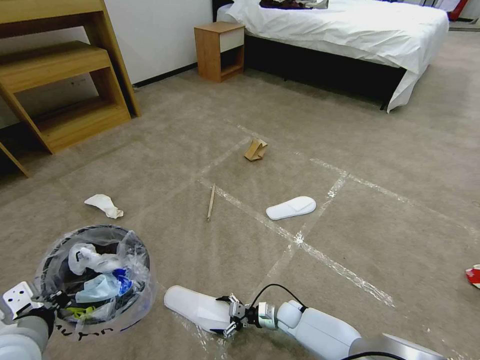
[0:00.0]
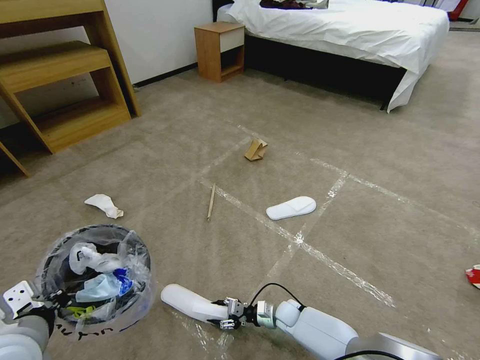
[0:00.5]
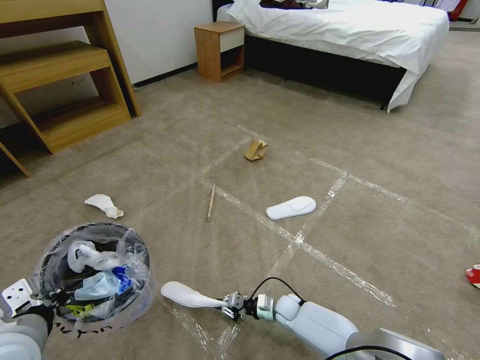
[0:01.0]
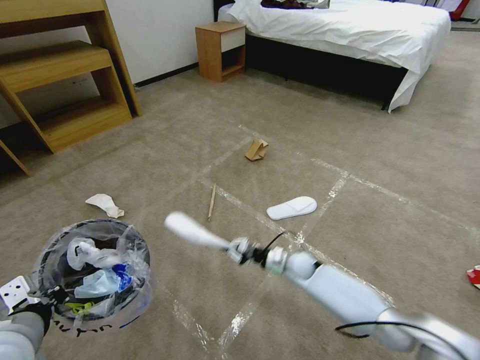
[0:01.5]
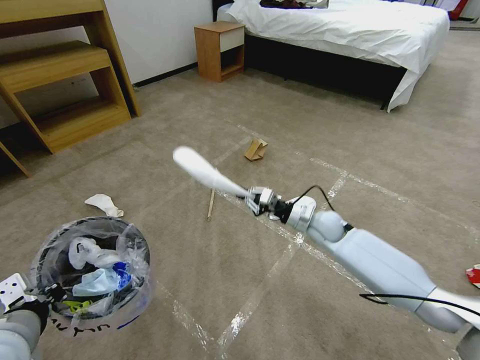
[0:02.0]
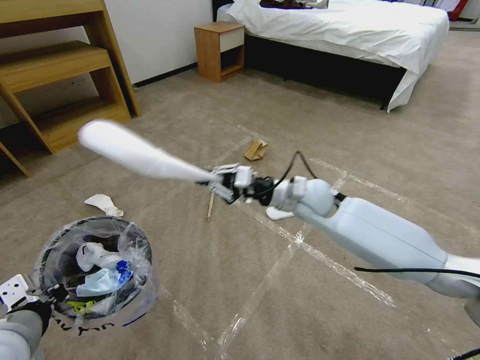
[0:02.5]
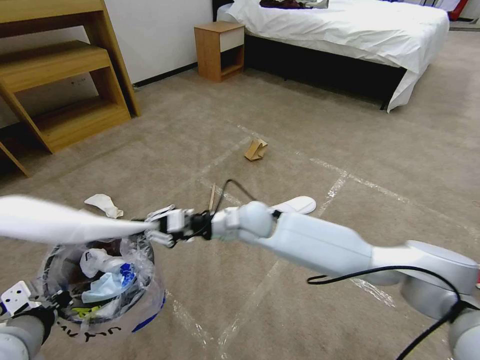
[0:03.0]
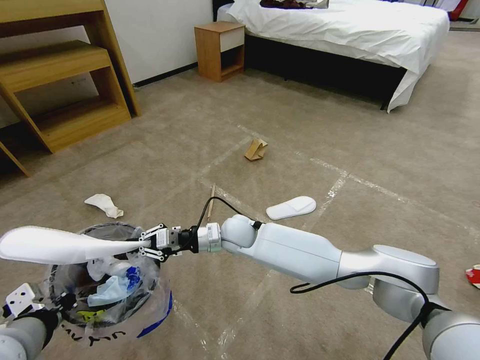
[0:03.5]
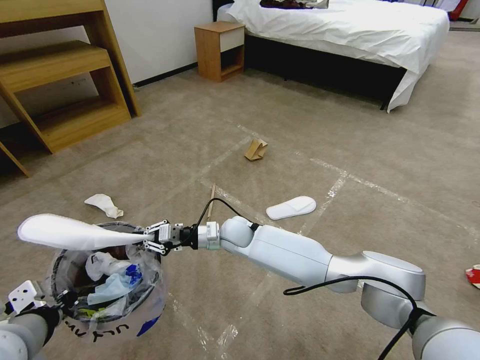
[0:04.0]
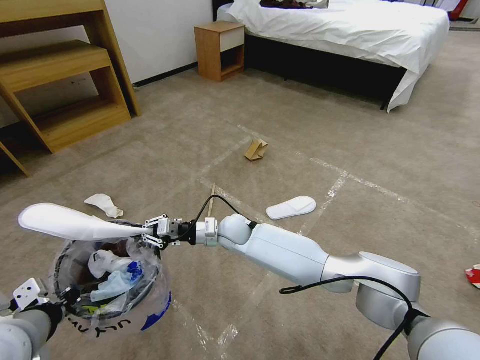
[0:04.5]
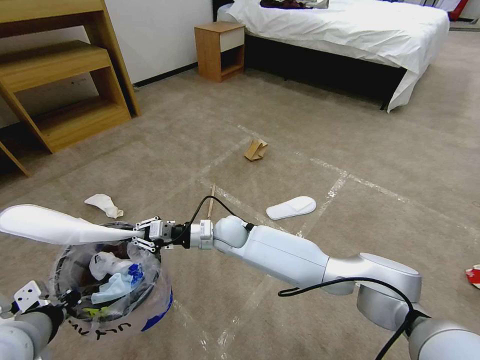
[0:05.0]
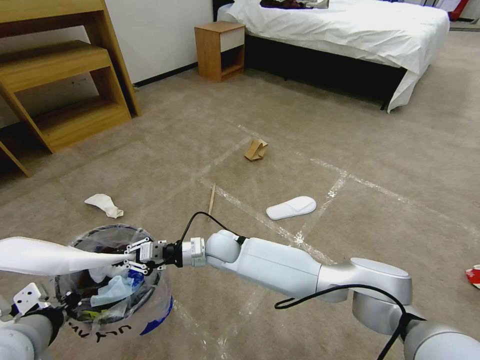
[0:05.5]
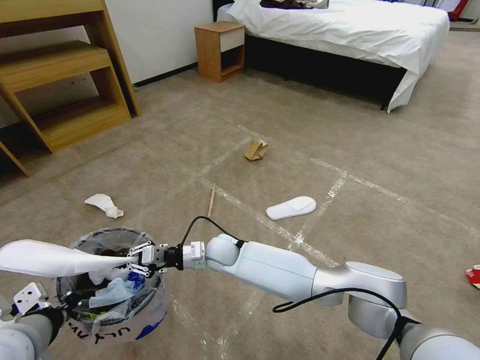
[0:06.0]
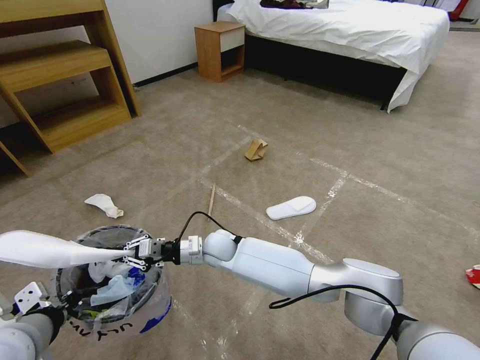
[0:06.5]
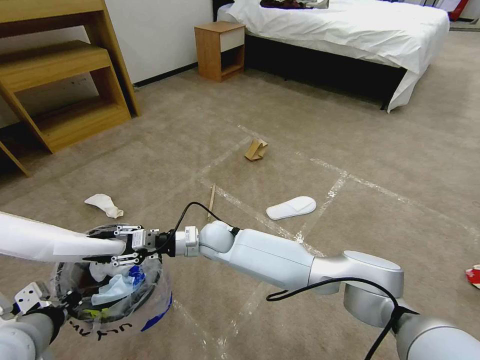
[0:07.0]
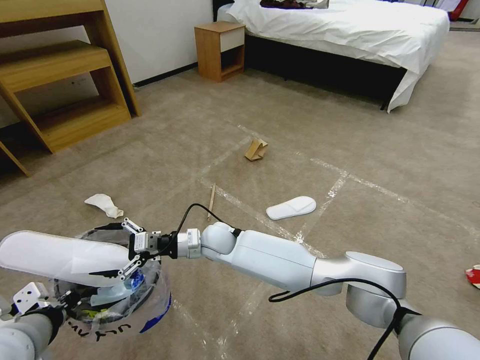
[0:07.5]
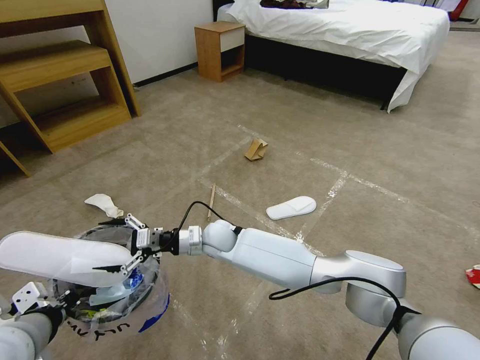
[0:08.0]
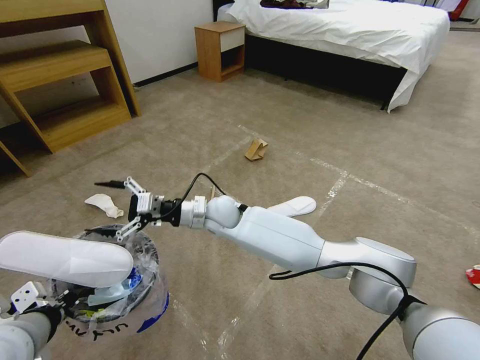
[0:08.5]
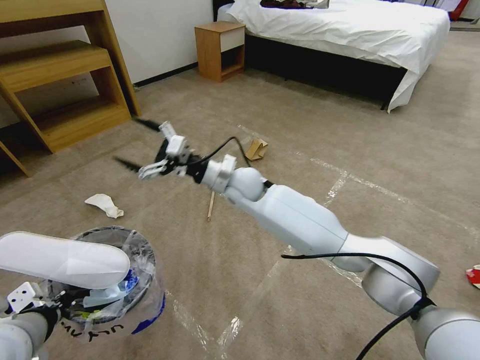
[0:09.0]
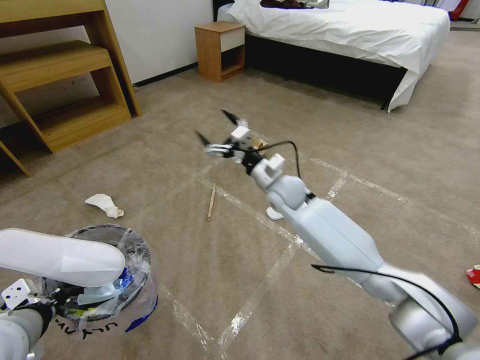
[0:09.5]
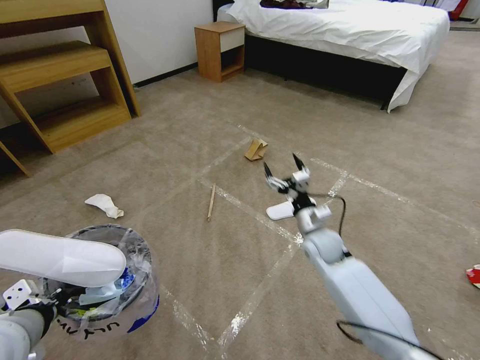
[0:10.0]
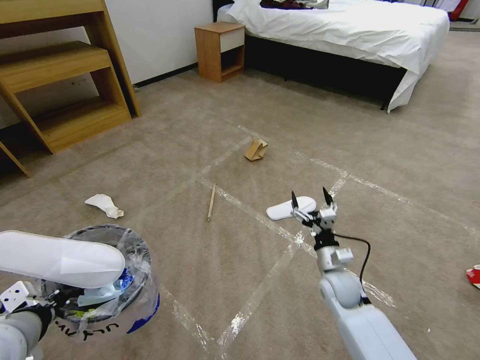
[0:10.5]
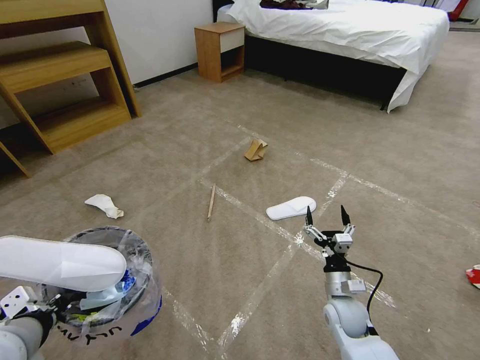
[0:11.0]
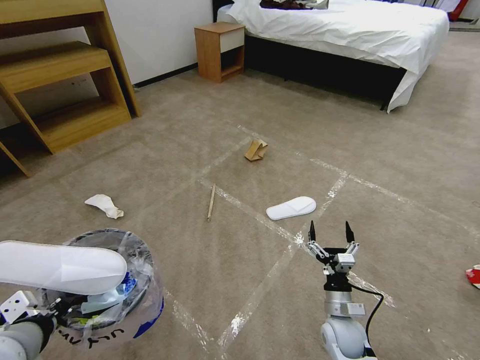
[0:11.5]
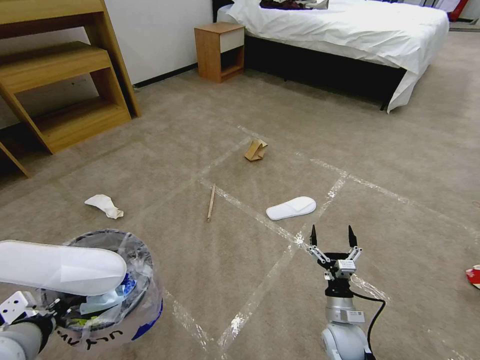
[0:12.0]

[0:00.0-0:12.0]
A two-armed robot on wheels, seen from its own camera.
Task of the whole recording: Pick up the trash bin and place the garbage on the floor into it.
0:00.0 to 0:02.0: The right gripper is displaced upward and forward by some 30 cm, and closes its fingers.
0:02.0 to 0:04.0: The right gripper goes roughly 25 cm to the left.
0:04.0 to 0:06.0: The right gripper changes place by about 5 cm.
0:06.0 to 0:08.0: The right gripper opens up.
0:08.0 to 0:10.0: The right gripper travels to the right by some 30 cm.
0:10.0 to 0:12.0: The right gripper travels backward and downward by some 20 cm.

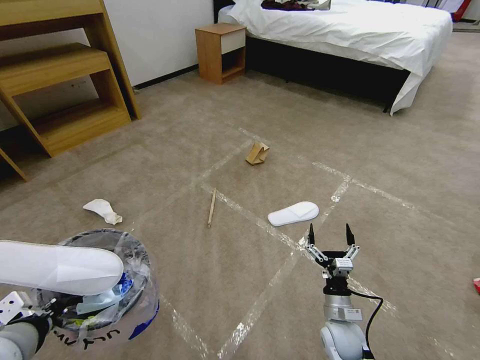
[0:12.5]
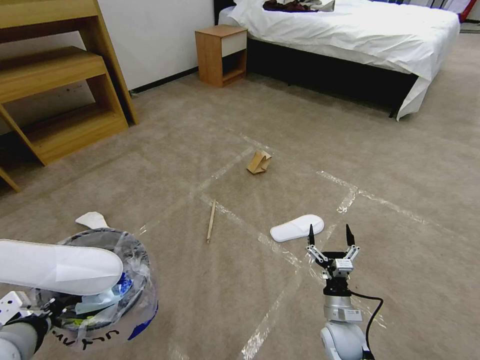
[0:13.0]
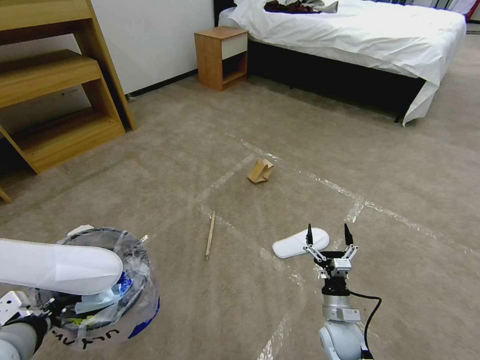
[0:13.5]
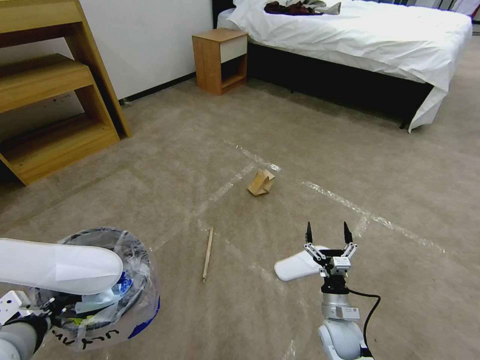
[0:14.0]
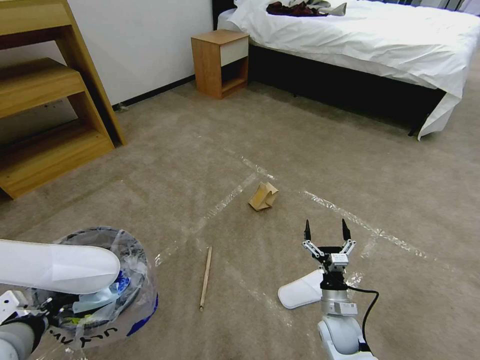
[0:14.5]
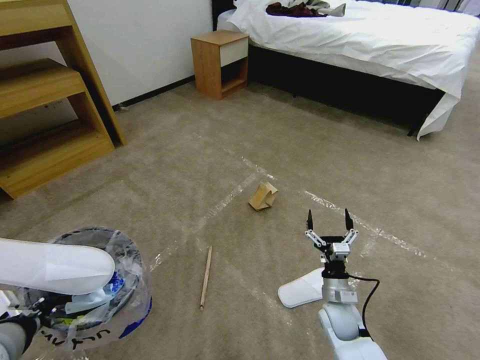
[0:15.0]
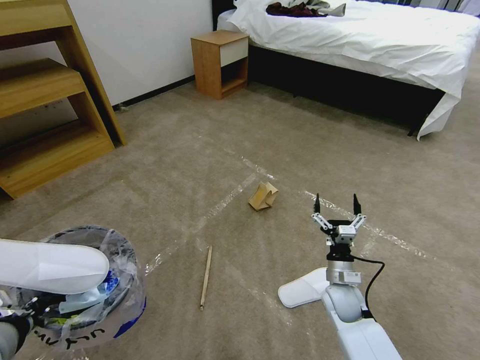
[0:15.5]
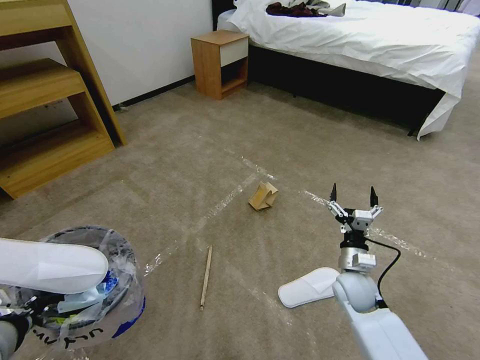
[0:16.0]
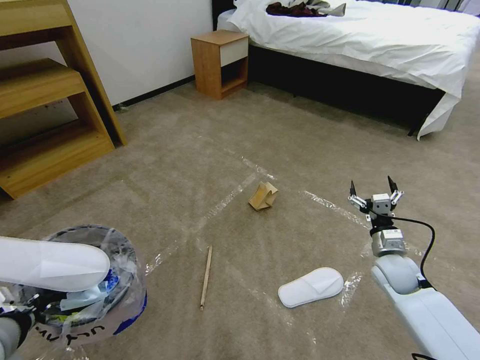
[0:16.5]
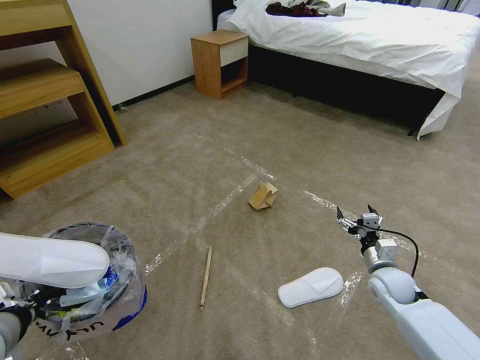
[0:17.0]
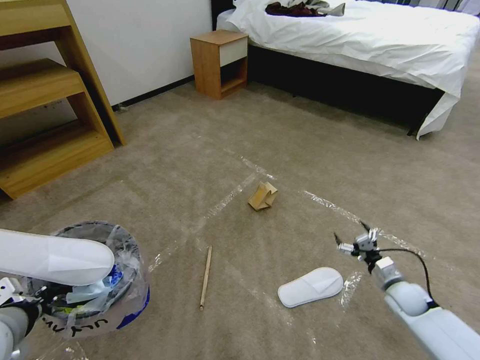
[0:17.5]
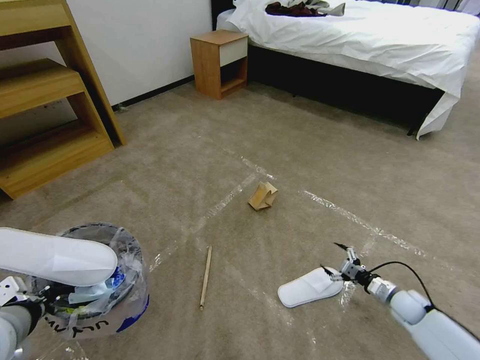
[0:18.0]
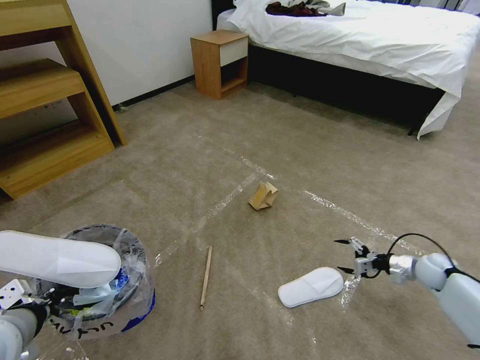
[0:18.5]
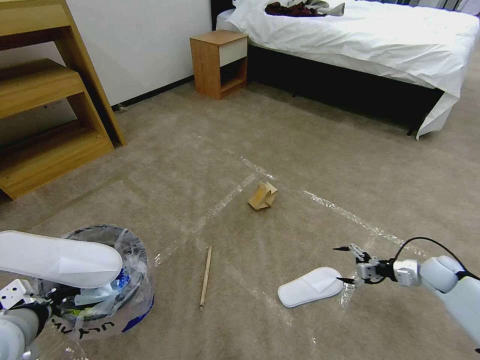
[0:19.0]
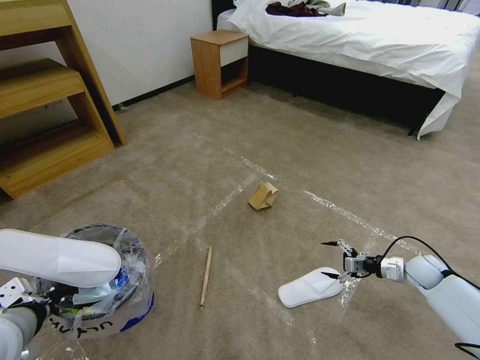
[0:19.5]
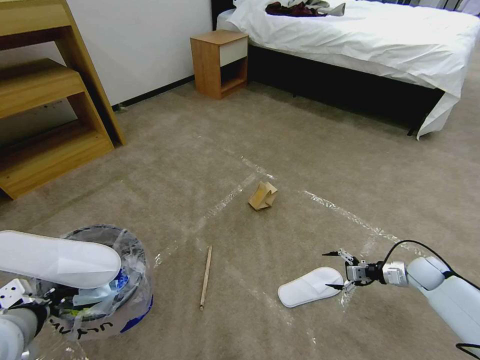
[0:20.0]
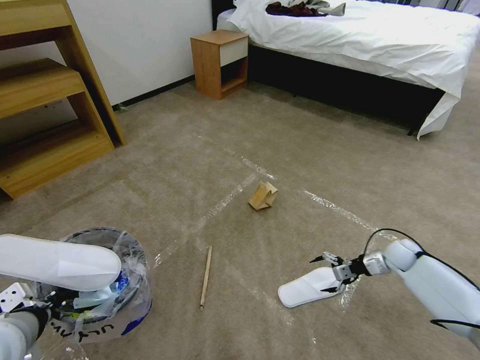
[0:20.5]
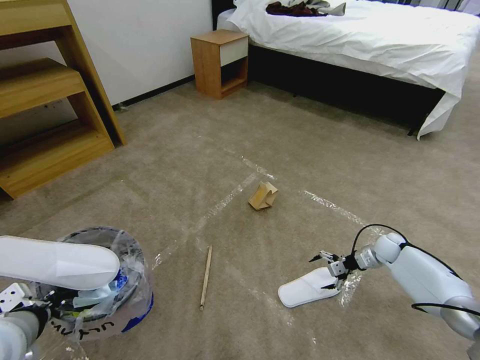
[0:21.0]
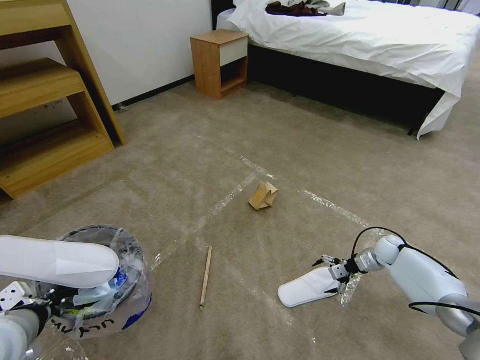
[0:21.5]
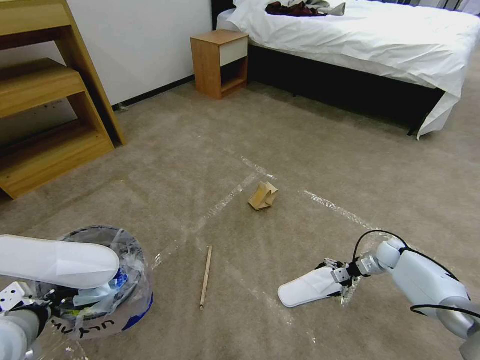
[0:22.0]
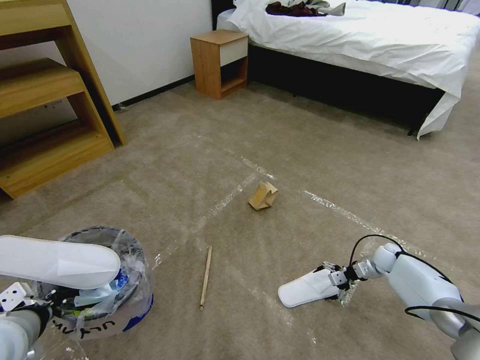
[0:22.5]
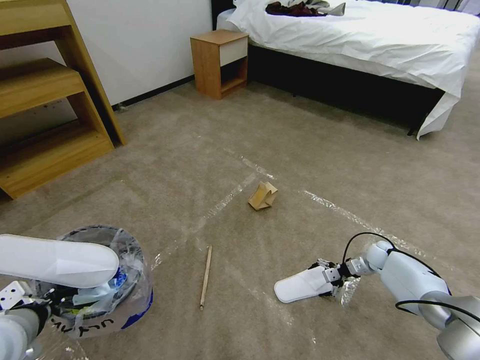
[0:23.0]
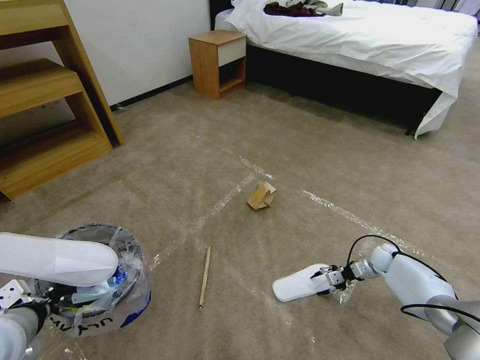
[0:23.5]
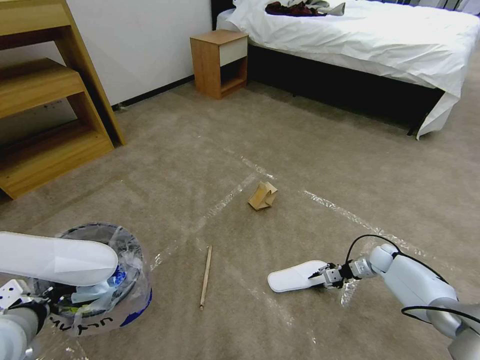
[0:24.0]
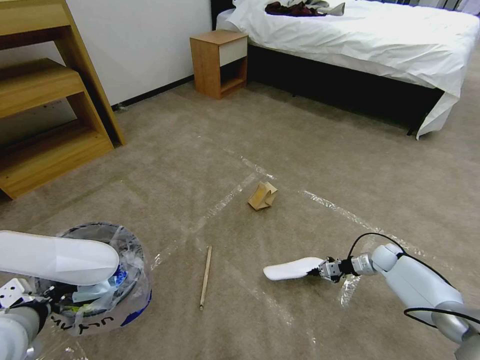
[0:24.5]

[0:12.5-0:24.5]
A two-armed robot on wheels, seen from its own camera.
Task of the whole recording: Pick up the trash bin and place the garbage on the floor into it.
0:14.5 to 0:16.5: The right gripper travels to the right, upward and forward by approximately 20 cm.
0:16.5 to 0:18.5: The right gripper heads to the right, covering approximately 15 cm.
0:18.5 to 0:20.5: The right gripper heads to the left and forward, covering about 10 cm.
0:20.5 to 0:22.5: The right gripper shifts roughly 5 cm downward.
0:22.5 to 0:24.5: The right gripper closes.

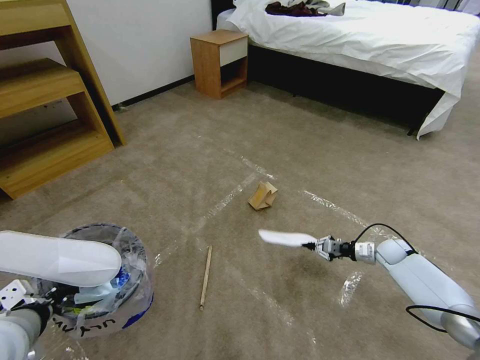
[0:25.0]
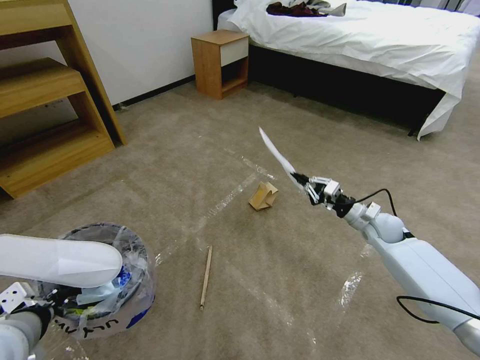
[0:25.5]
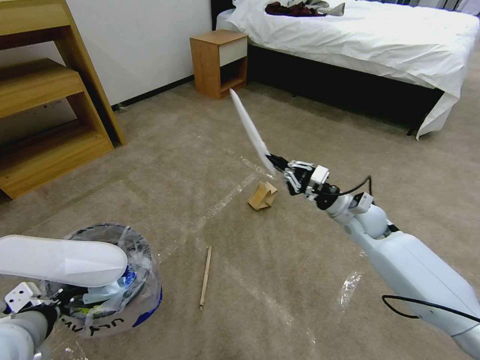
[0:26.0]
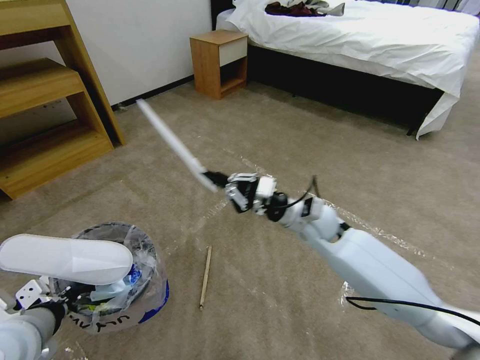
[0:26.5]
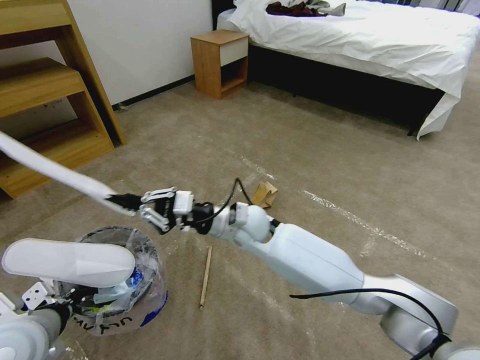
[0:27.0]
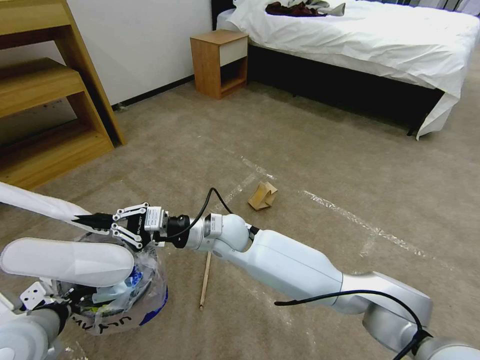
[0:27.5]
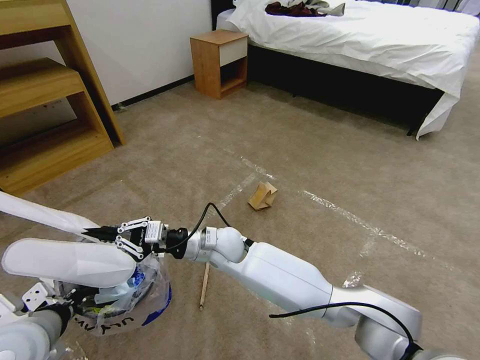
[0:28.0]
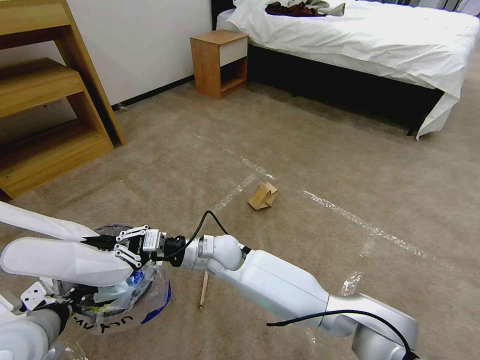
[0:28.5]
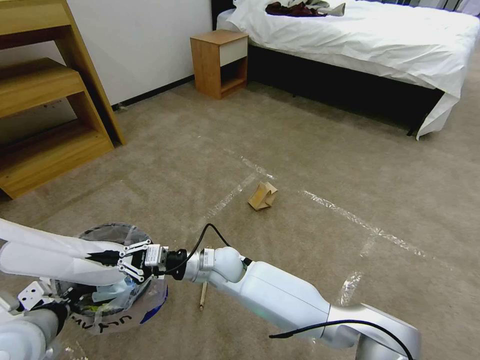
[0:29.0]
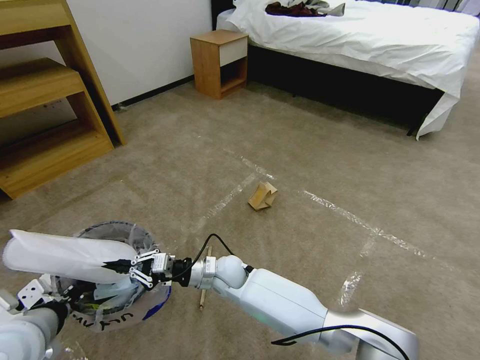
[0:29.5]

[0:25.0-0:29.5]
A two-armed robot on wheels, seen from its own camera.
Task of the whole recording: Pick up the trash bin and place the garbage on the floor into it.
0:25.0 to 0:27.0: The right gripper heads to the left and upward, covering roughly 50 cm.
0:27.0 to 0:29.5: The right gripper goes about 15 cm downward.
